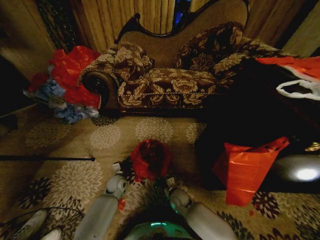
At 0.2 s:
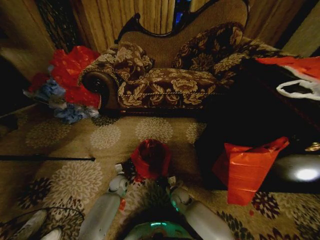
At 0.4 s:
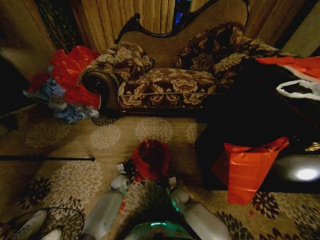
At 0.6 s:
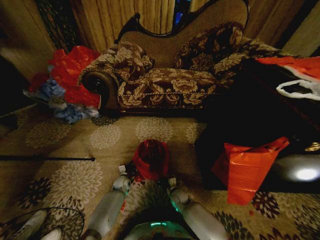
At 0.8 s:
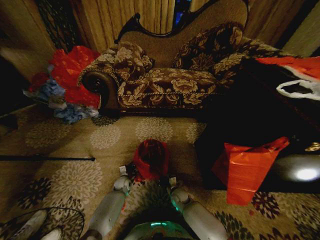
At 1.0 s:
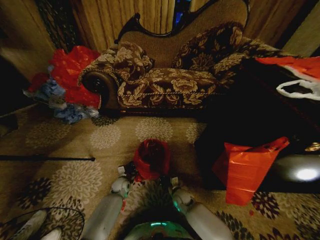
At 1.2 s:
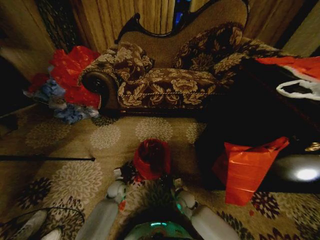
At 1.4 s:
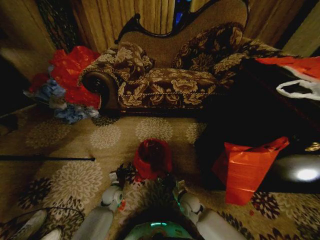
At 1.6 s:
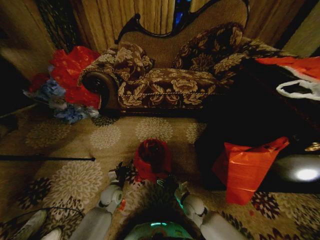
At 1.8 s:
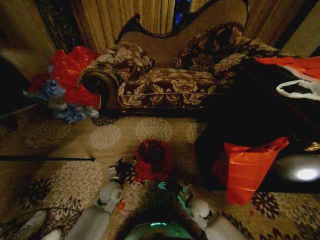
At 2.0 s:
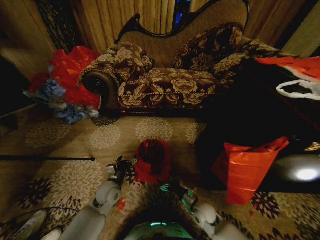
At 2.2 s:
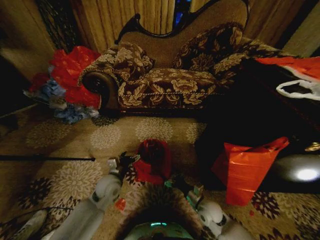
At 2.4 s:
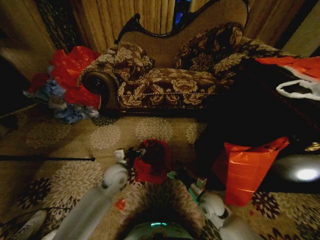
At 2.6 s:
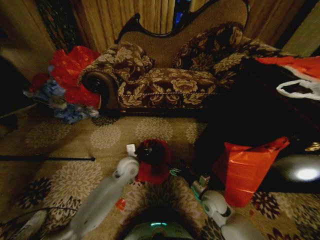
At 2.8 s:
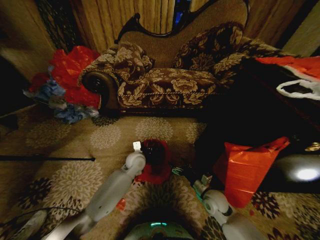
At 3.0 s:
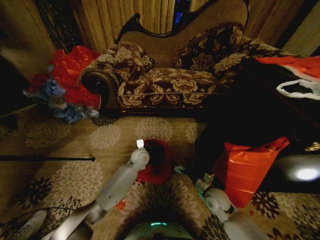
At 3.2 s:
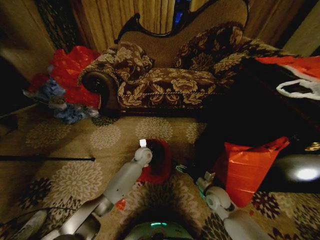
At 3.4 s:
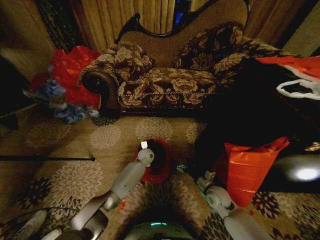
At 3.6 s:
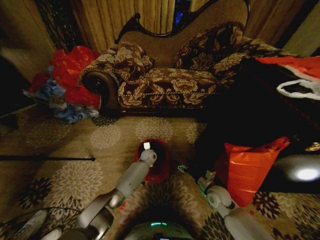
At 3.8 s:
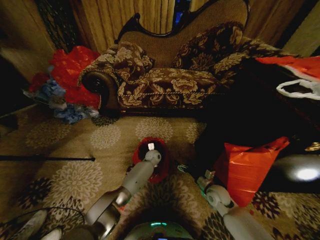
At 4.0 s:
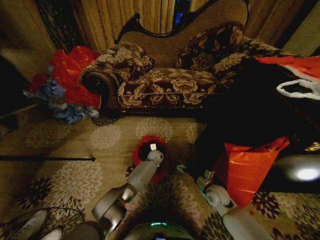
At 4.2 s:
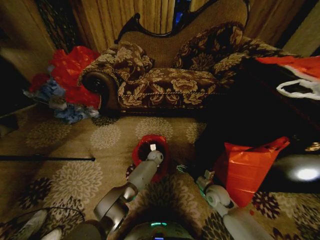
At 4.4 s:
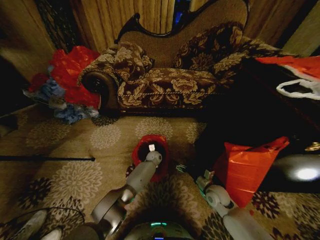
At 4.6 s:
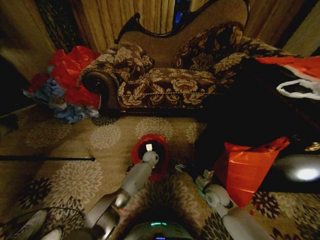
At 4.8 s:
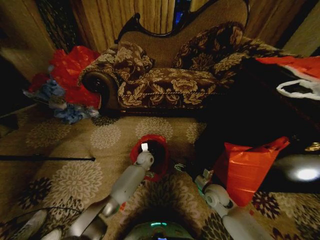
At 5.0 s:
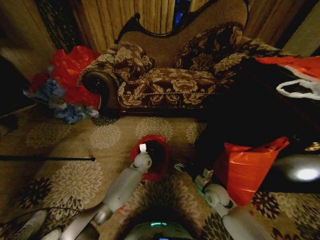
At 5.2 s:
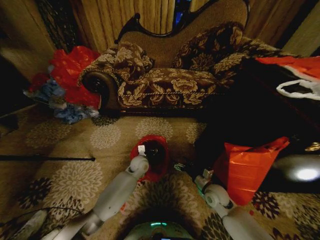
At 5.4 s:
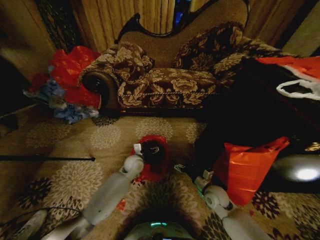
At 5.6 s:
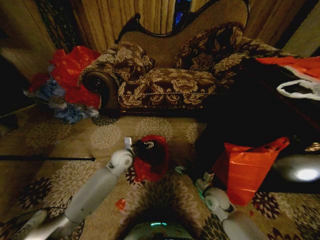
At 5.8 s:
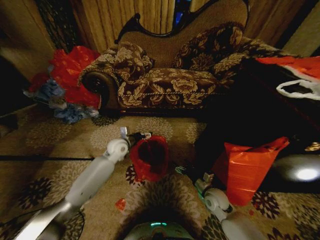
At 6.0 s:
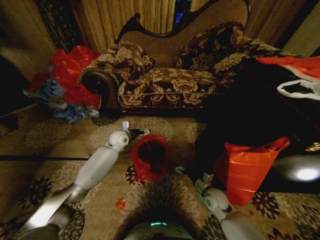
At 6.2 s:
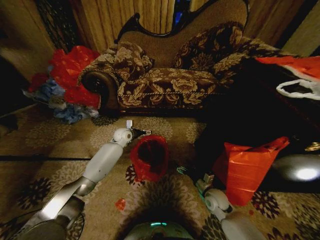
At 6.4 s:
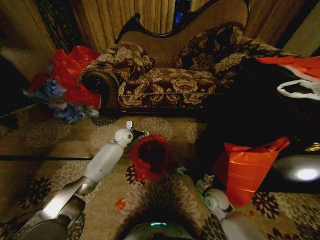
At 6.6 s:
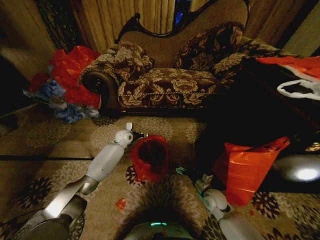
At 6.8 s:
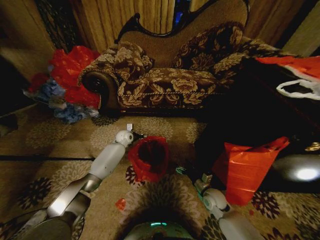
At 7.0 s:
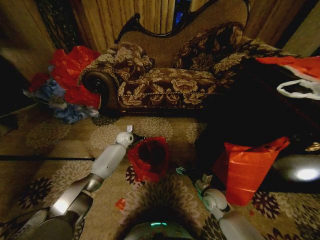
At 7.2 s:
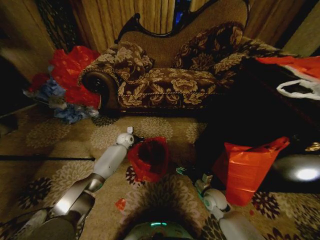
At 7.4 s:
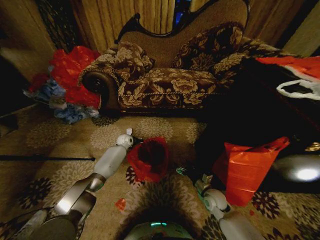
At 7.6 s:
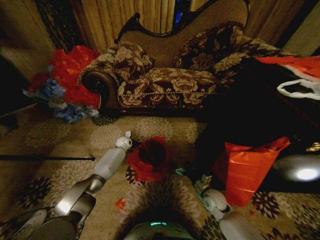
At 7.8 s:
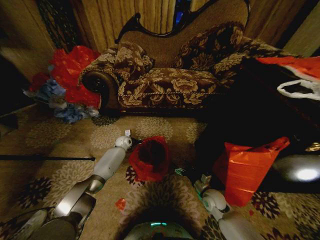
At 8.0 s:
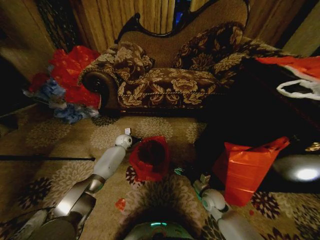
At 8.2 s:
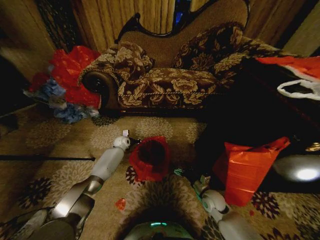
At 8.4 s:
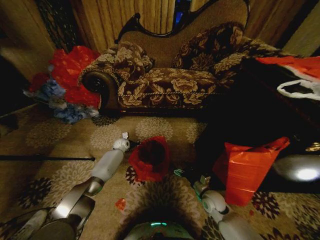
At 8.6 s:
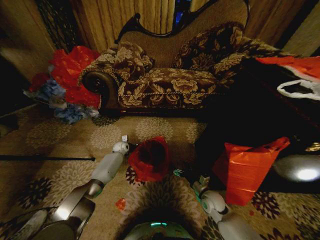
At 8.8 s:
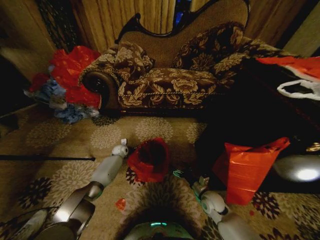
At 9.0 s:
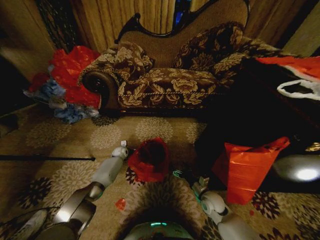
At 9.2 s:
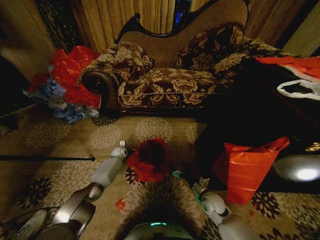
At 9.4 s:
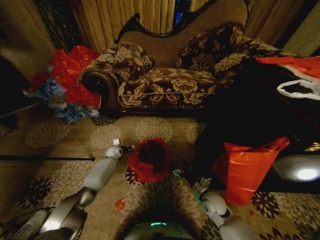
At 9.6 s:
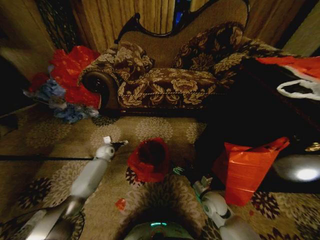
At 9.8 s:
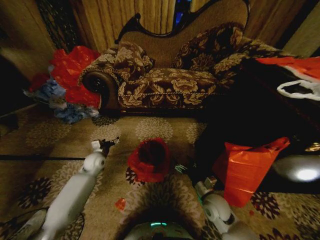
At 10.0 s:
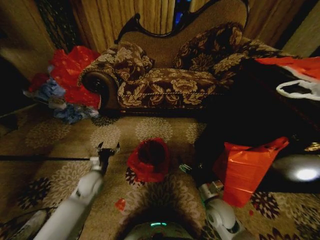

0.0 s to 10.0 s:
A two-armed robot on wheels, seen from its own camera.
Task of the whole recording: Place a garbage bag over the trash bin.
0.0 to 1.4 s: The left gripper is displaced backward by some 5 cm, and opens. Meanwhile the right gripper ends up roughly 5 cm from where it was, and opens its fingers.
1.4 to 2.8 s: The left gripper moves upward, to the right and forward, some 20 cm, and opens, then closes once more, while the right gripper travels to the right and upward by some 10 cm, and opens up.
2.8 to 4.2 s: The left gripper heads downward, forward and to the right, covering approximately 20 cm, and closes its fingers.
4.2 to 5.8 s: The left gripper goes some 30 cm upward, to the left and backward, and opens up.
5.8 to 7.2 s: The left gripper moves forward and downward, approximately 15 cm, and closes.
7.2 to 8.6 s: The left gripper moves downward, roughly 10 cm, and opens up.
8.6 to 10.0 s: The left gripper heads backward, covering roughly 25 cm. The right gripper heads upward and backward, covering roughly 10 cm.

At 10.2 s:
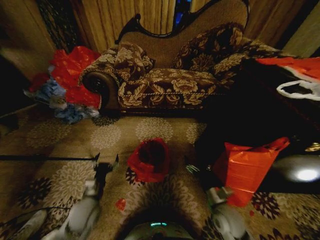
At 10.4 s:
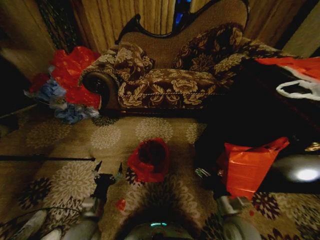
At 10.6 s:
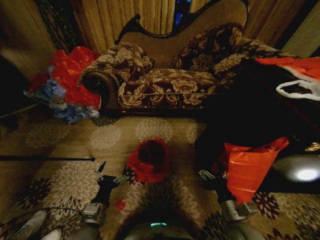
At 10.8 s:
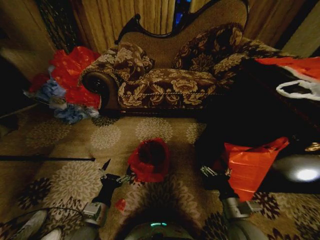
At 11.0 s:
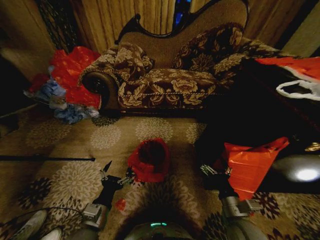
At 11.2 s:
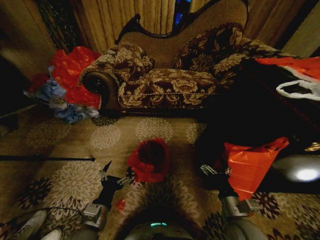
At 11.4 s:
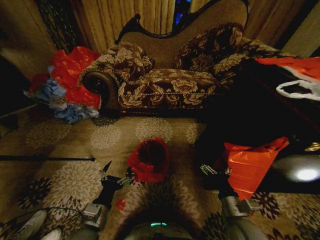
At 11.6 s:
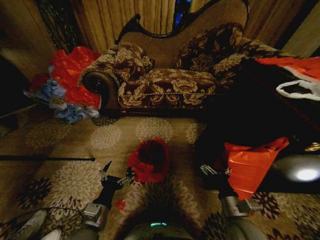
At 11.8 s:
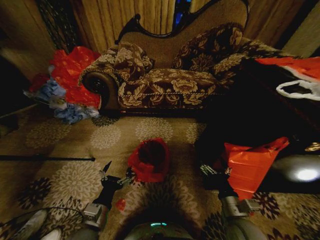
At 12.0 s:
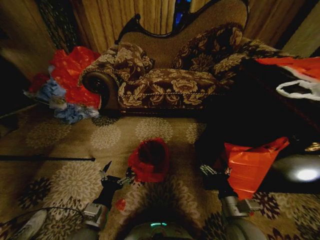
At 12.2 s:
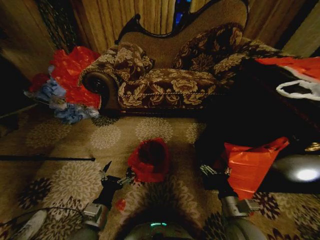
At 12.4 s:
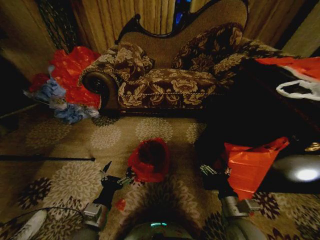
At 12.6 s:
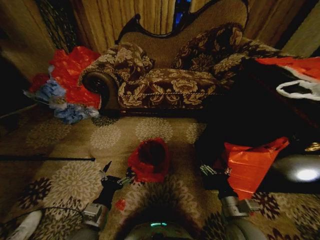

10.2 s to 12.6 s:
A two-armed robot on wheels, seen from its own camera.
Task of the whole recording: Place a garbage bag over the trash bin.
10.2 to 11.4 s: The left gripper travels backward by approximately 10 cm. The right gripper changes place by roughly 5 cm.
11.4 to 12.6 s: Both grippers stay about where they are.
